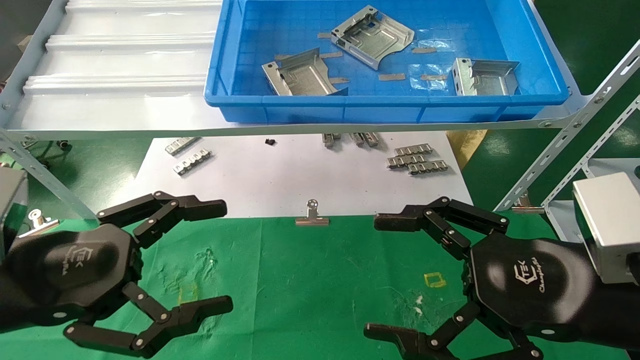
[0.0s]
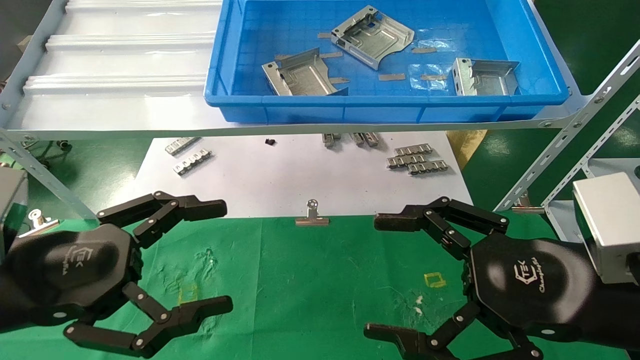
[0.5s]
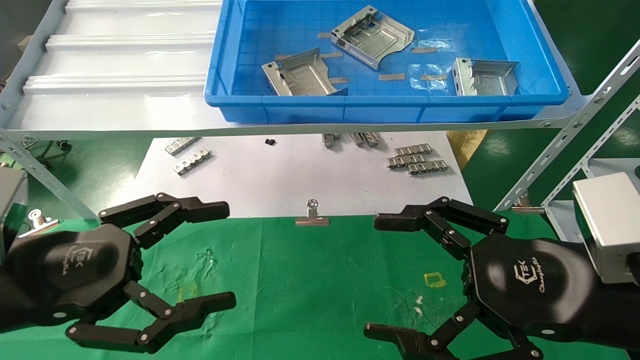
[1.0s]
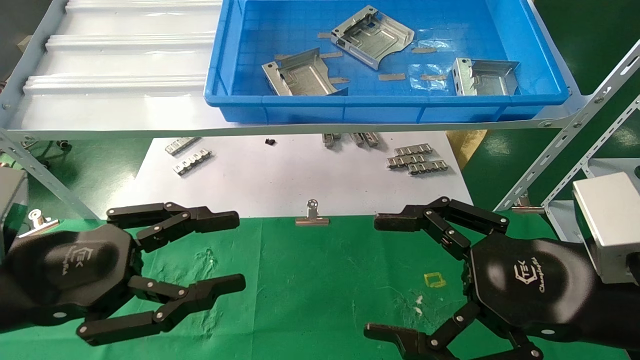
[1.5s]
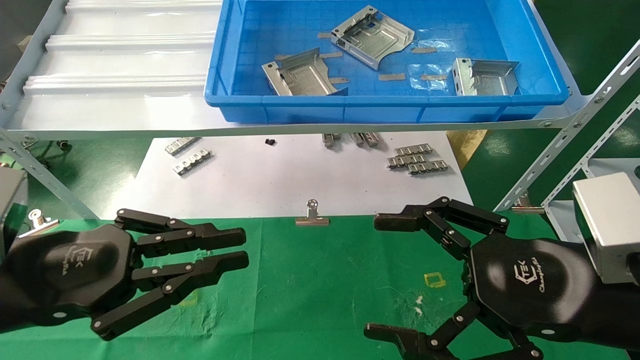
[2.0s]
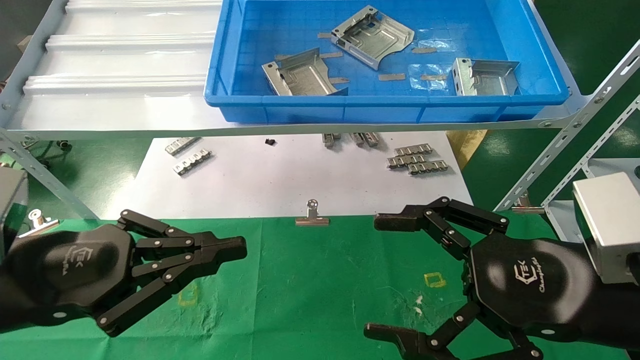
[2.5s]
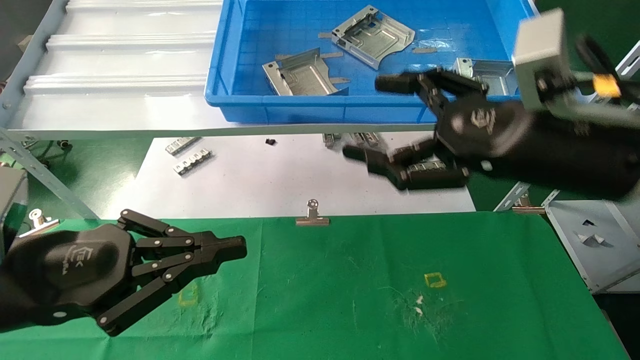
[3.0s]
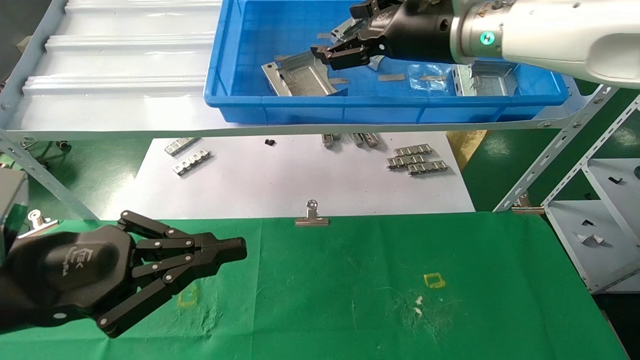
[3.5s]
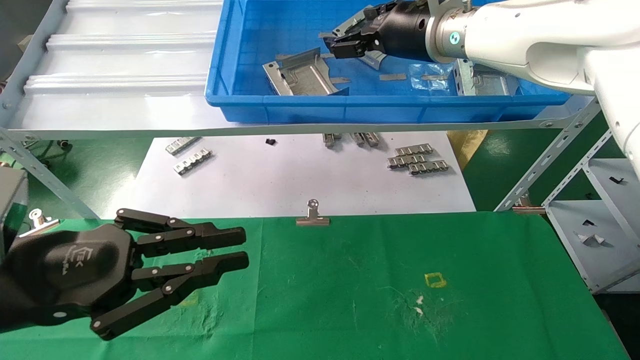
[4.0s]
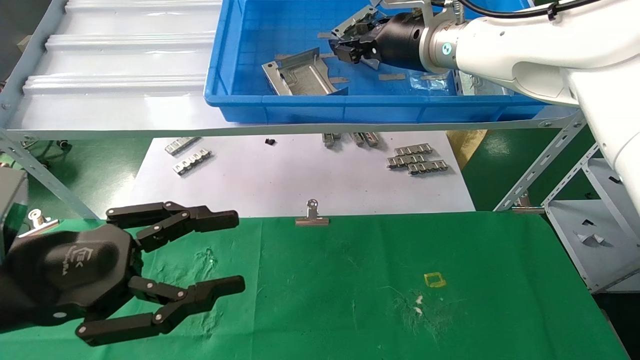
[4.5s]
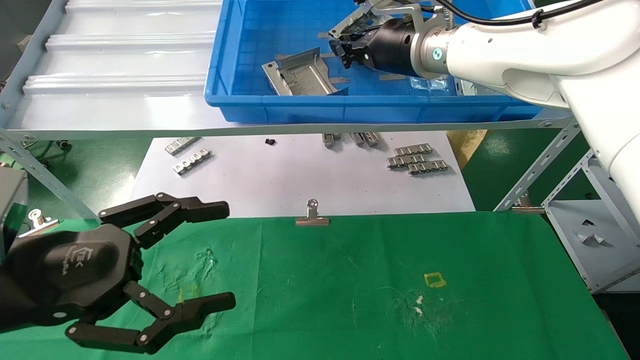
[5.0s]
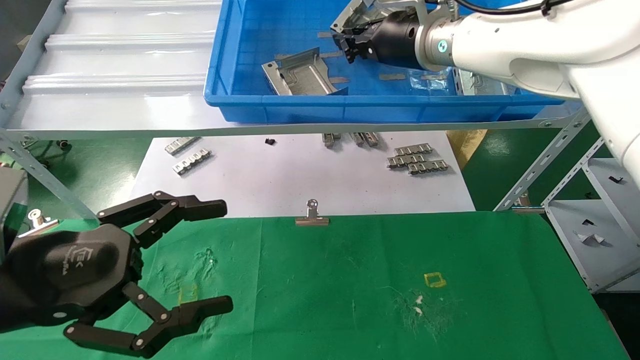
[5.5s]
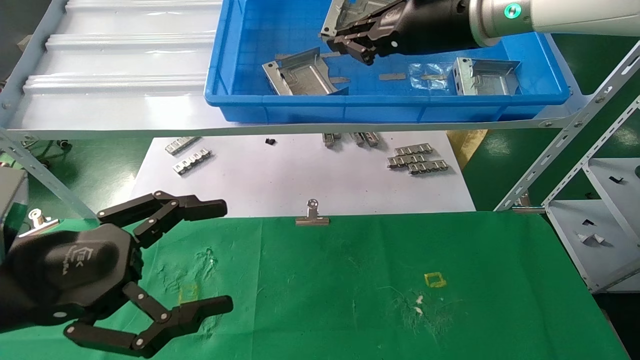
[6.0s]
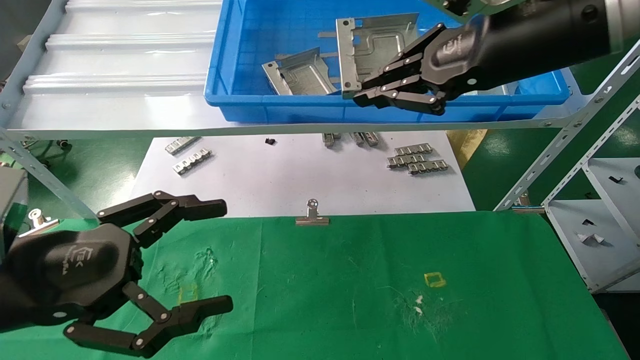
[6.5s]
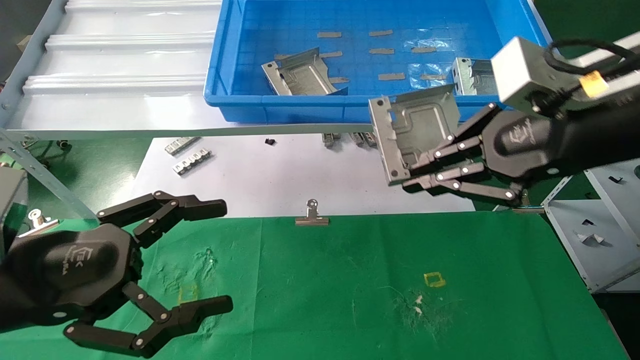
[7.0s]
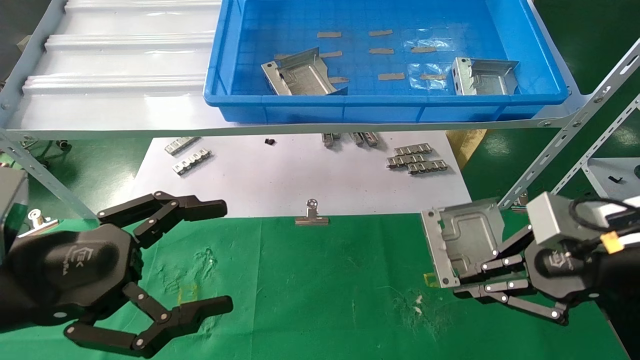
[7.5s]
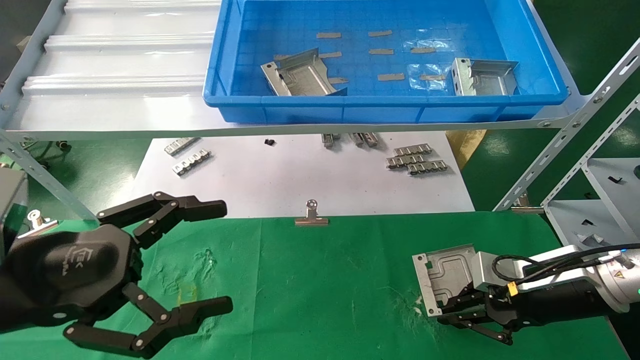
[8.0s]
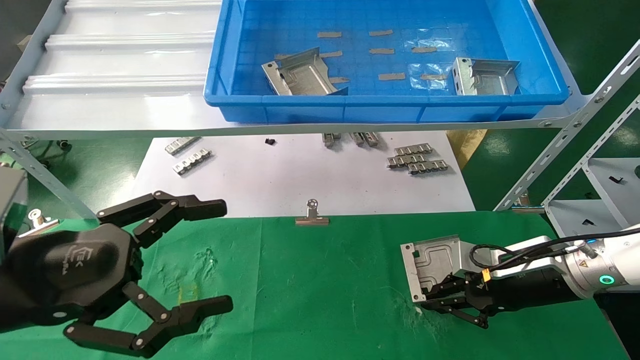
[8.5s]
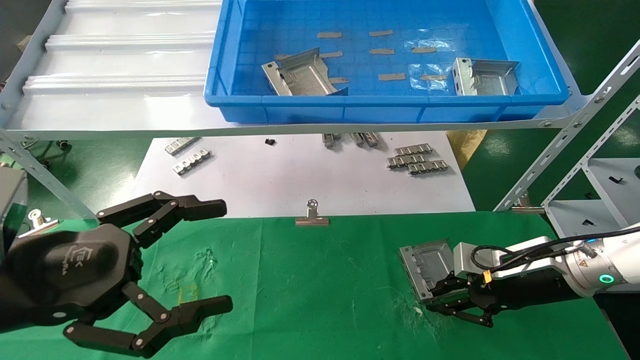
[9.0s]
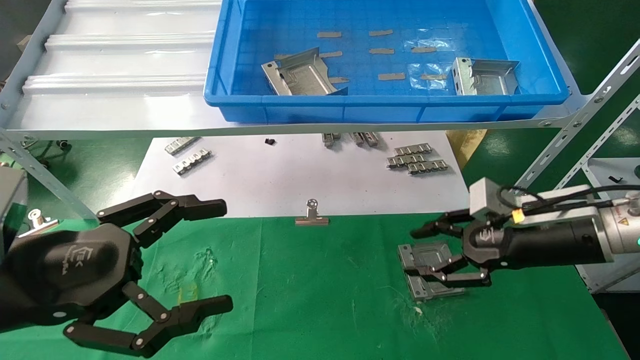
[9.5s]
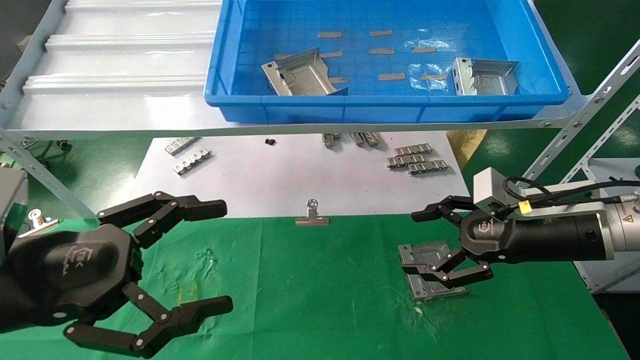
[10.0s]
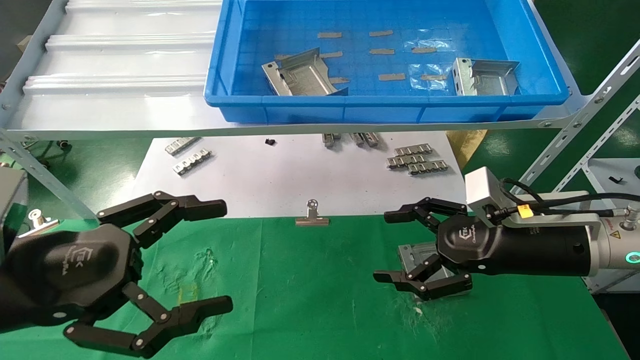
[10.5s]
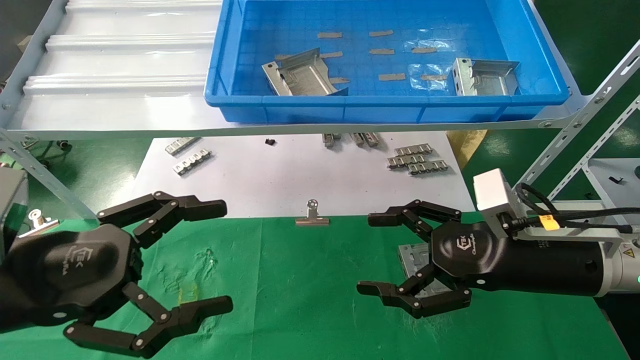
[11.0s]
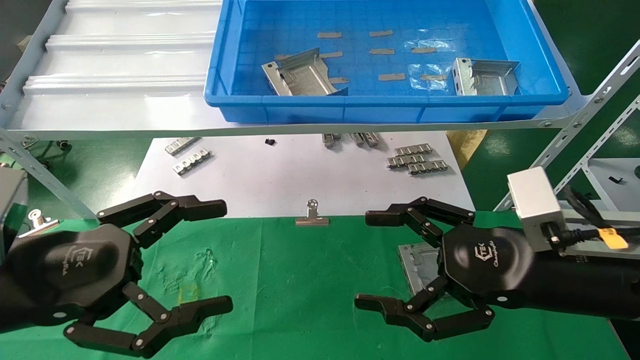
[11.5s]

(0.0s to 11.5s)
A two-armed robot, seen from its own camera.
Task of the whole recording: use the mechanical arm to pick up the parts and place them on the table.
Step, 2.5s - 7.0s: Pick up the hard drive bracket from the feeding area.
Step, 7.5s - 10.0s: Place the hard drive bracket into the box.
0.0s - 2.0s: The left gripper closes its fingers.
2.0s - 4.0s: The right gripper goes about 35 cm forward, upward and to the left.
4.0s - 6.0s: The right gripper goes approximately 5 cm backward, and closes. Meanwhile the left gripper opens its fingers.
6.0s - 7.5s: The right gripper shifts some 30 cm downward, to the right and backward.
7.5s - 9.5s: The right gripper is displaced forward and downward by about 10 cm, and opens its fingers.
9.5s - 11.5s: The right gripper travels backward and to the left by approximately 10 cm, and opens.
